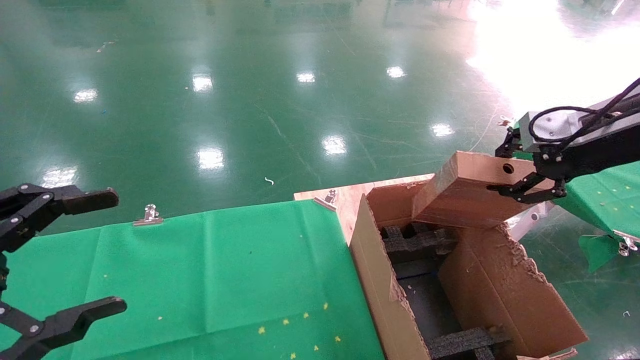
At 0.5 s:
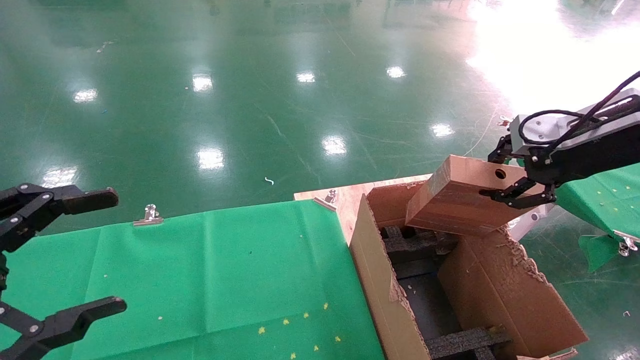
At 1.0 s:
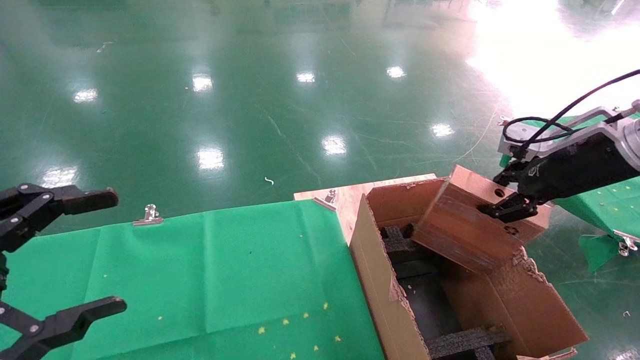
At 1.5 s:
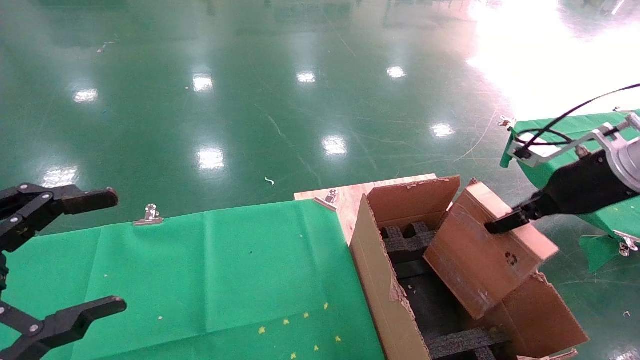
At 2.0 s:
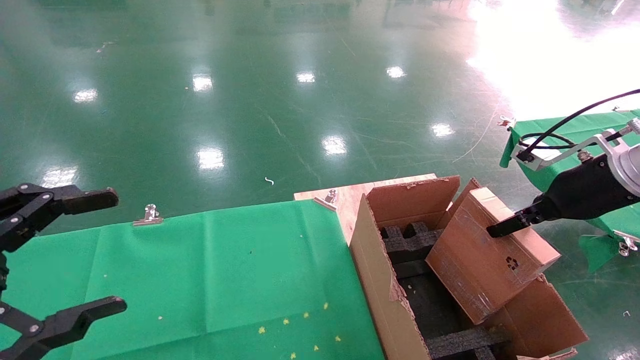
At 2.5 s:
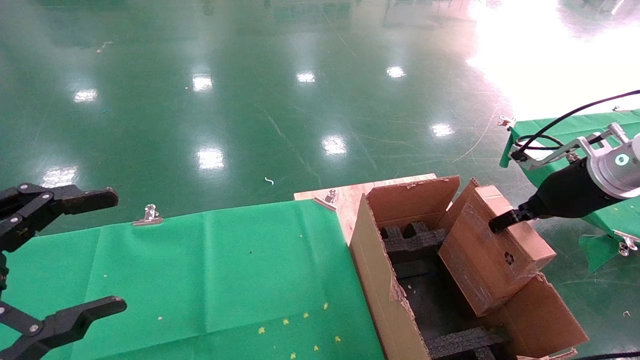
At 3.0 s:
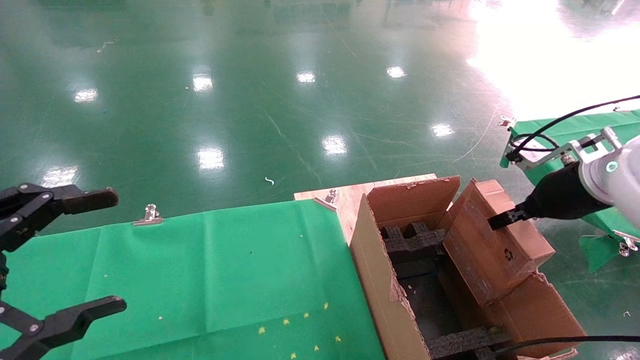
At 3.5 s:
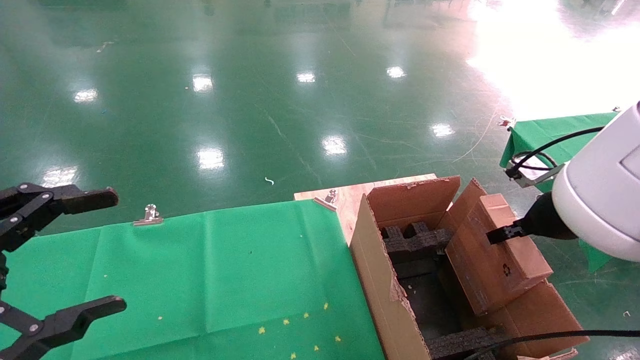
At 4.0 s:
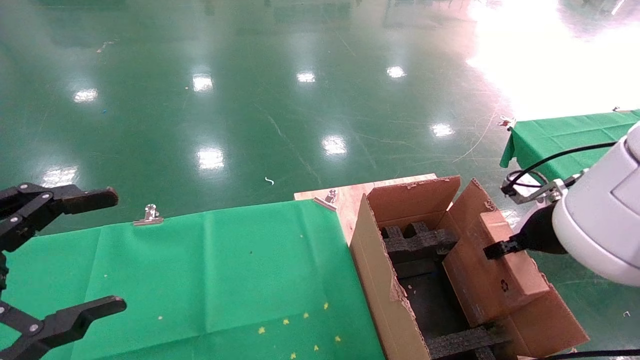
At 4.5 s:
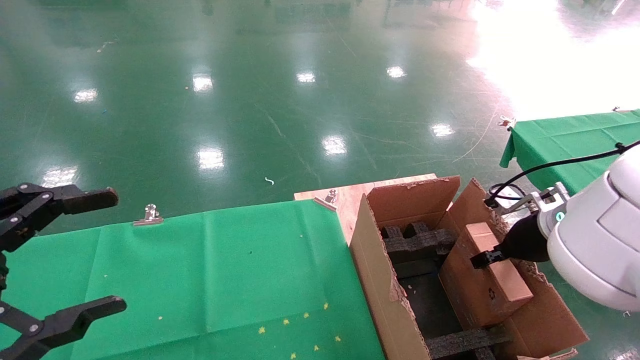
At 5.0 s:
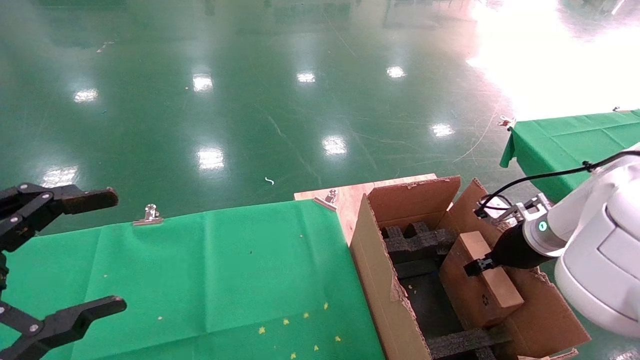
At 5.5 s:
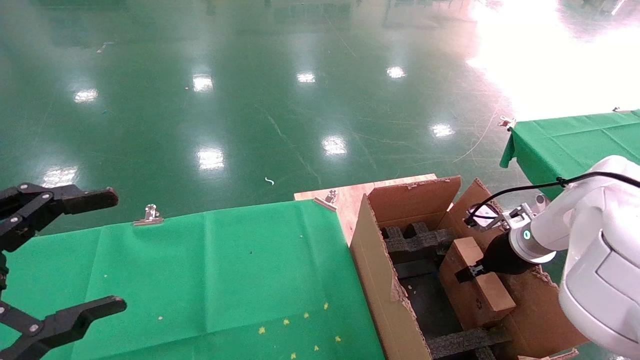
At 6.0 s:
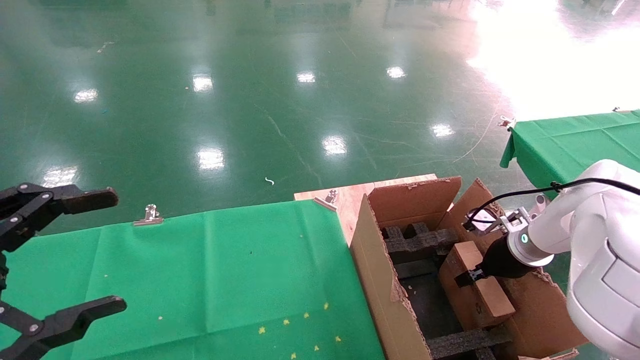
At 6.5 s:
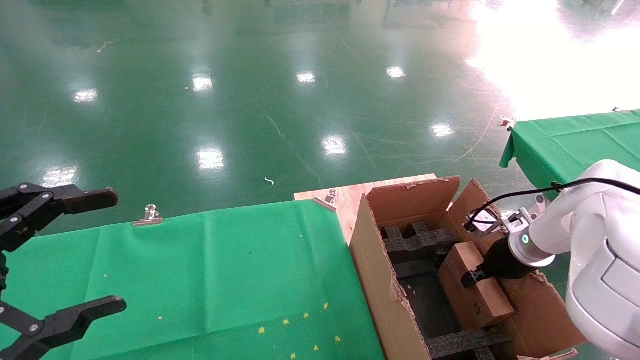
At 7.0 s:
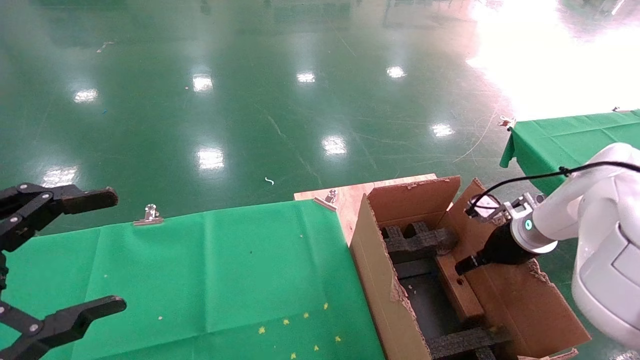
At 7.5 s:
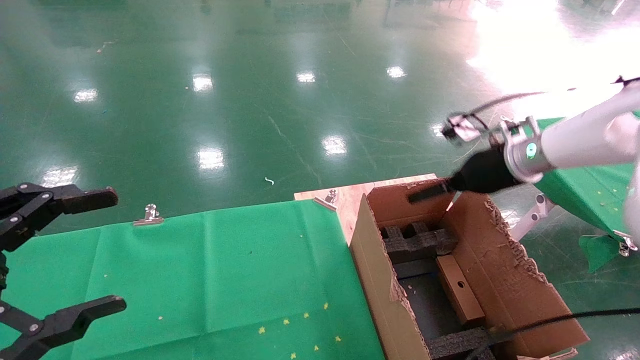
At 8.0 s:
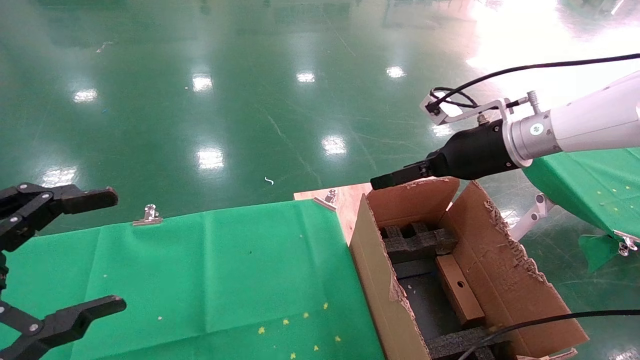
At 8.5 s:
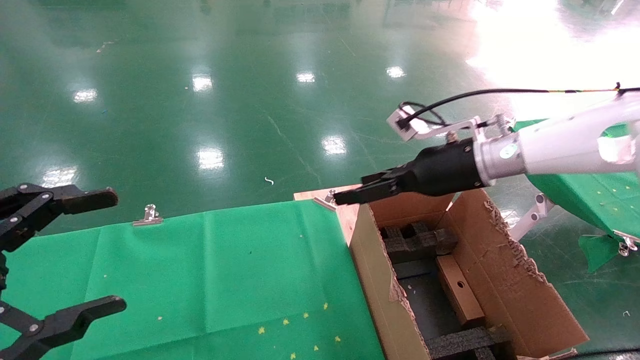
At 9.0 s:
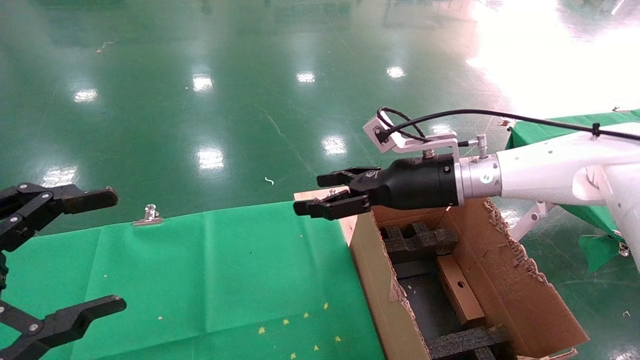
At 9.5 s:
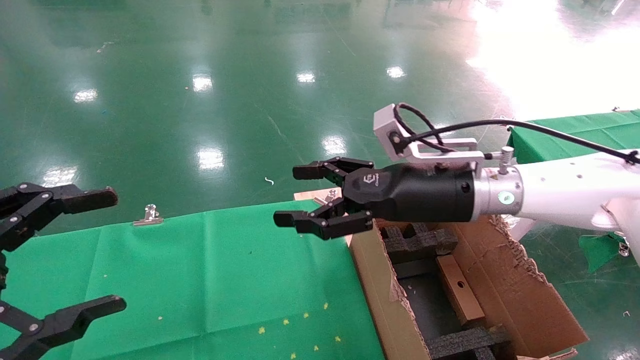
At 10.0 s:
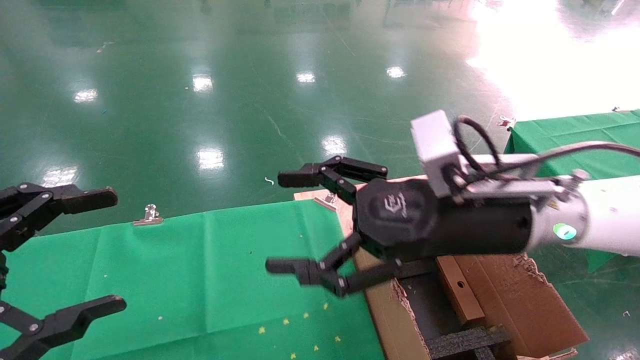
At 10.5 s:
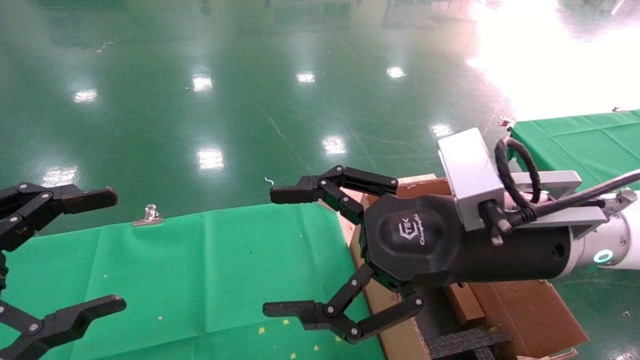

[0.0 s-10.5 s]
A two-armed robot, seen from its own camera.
Task of the whole recording: using a robotic arm to pick up a cardboard box and palace it the carton.
Step, 0.0 to 6.5 s: Place the mouse and the power cord paper box into the container.
0.0 to 2.0 s: The right gripper goes about 10 cm downward.
2.0 to 4.0 s: The right gripper moves downward, about 10 cm.
4.0 to 6.5 s: The right gripper moves downward and forward, about 10 cm.
6.5 to 8.5 s: The right gripper moves upward and to the left, approximately 20 cm, and opens its fingers.
8.5 to 10.5 s: The right gripper is displaced backward and to the left by some 20 cm.
